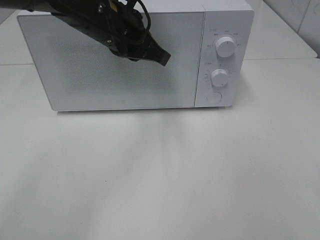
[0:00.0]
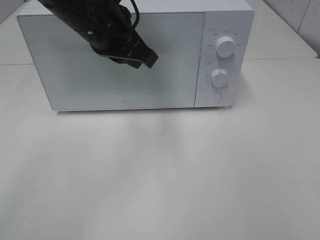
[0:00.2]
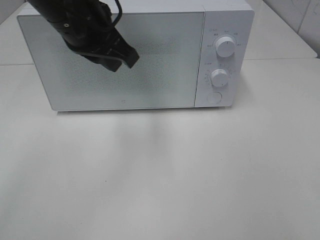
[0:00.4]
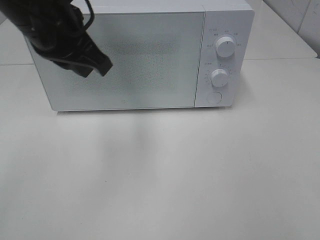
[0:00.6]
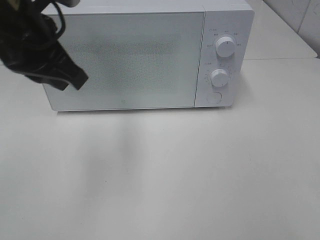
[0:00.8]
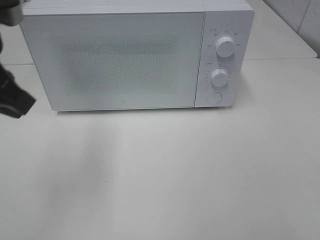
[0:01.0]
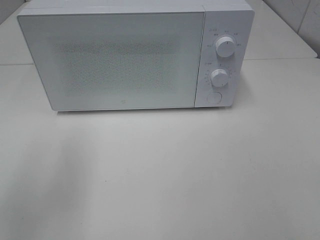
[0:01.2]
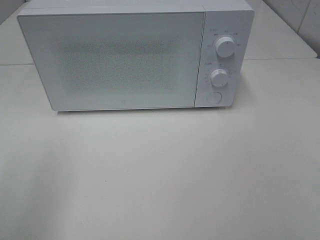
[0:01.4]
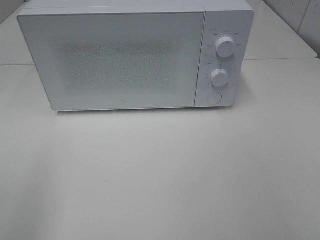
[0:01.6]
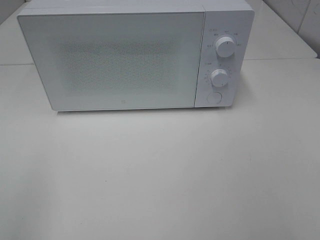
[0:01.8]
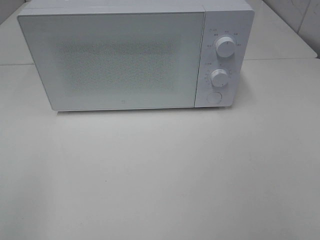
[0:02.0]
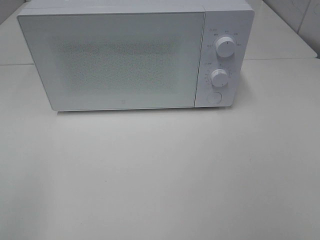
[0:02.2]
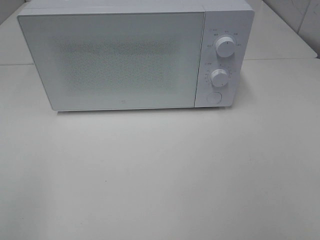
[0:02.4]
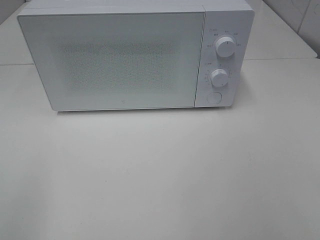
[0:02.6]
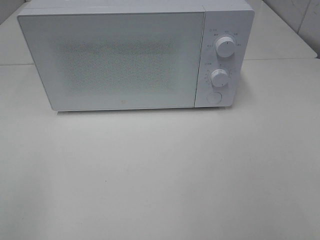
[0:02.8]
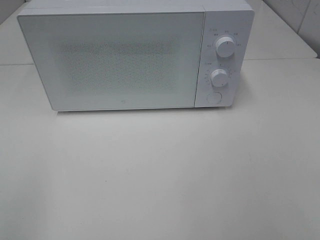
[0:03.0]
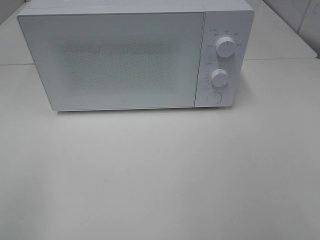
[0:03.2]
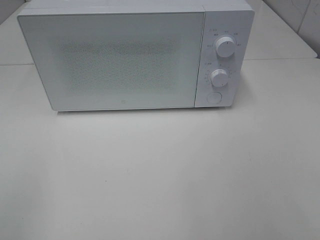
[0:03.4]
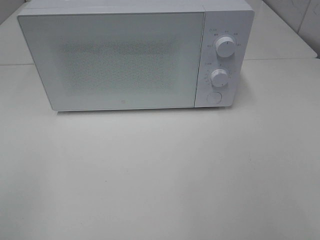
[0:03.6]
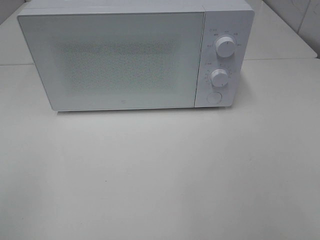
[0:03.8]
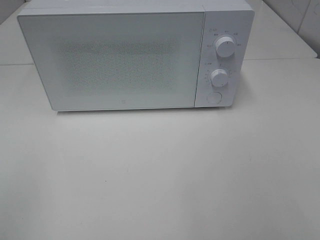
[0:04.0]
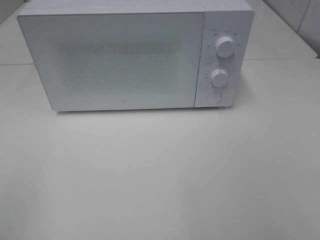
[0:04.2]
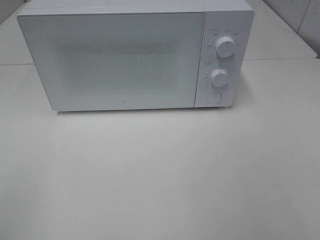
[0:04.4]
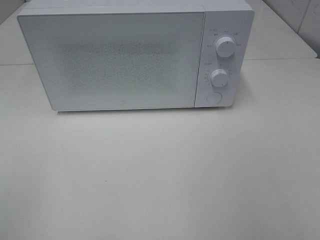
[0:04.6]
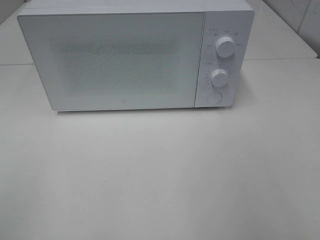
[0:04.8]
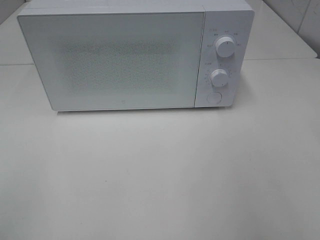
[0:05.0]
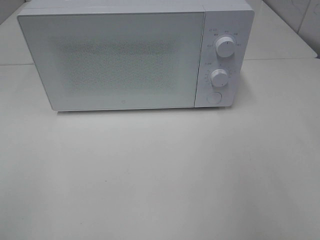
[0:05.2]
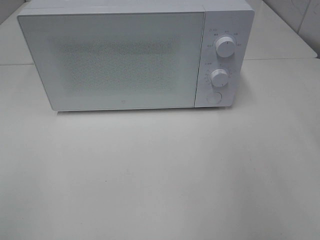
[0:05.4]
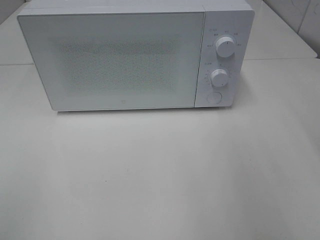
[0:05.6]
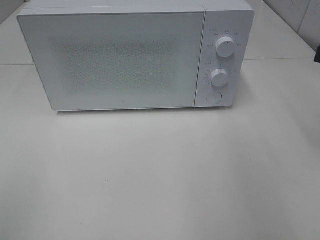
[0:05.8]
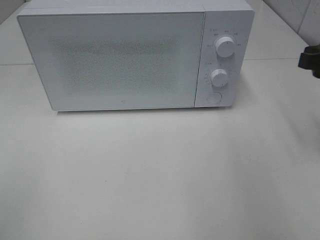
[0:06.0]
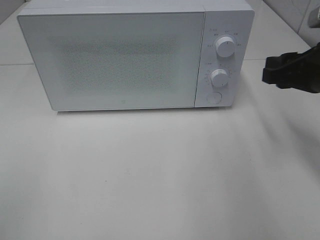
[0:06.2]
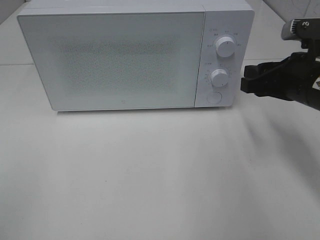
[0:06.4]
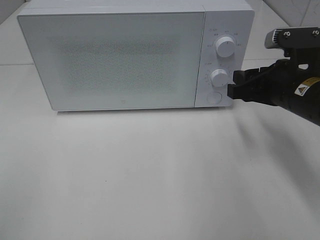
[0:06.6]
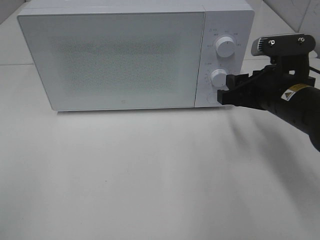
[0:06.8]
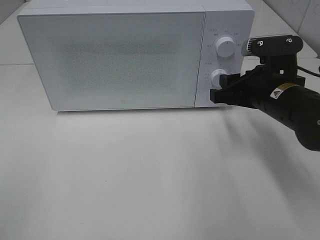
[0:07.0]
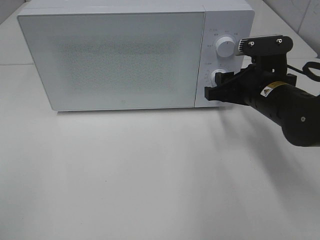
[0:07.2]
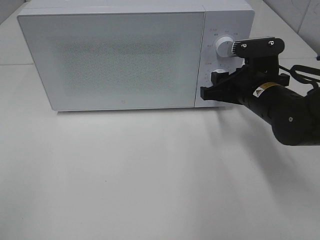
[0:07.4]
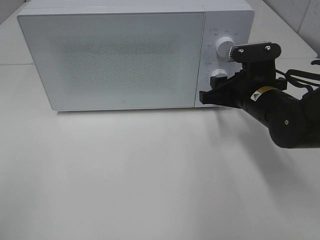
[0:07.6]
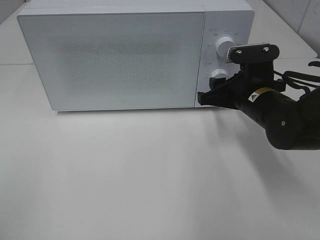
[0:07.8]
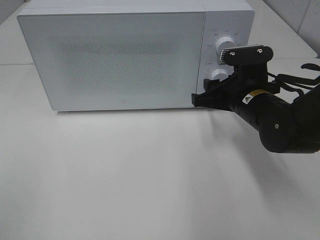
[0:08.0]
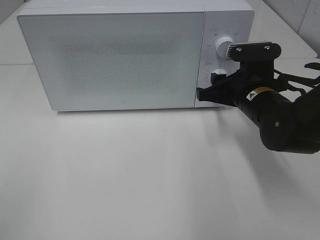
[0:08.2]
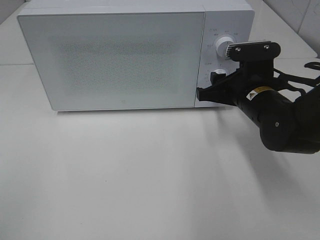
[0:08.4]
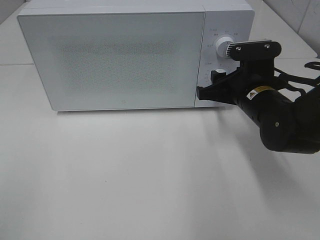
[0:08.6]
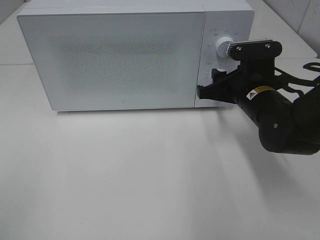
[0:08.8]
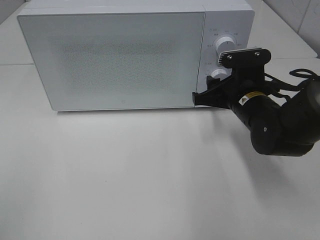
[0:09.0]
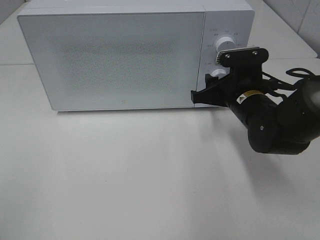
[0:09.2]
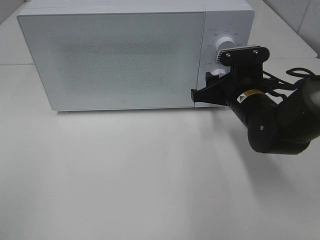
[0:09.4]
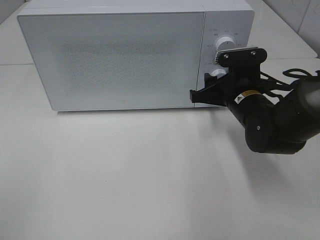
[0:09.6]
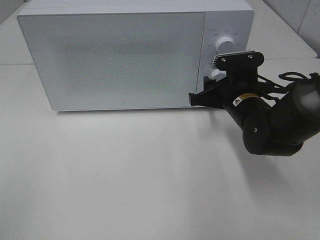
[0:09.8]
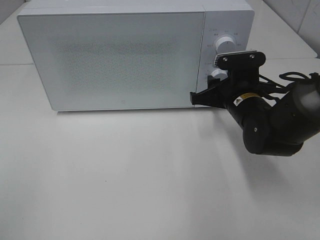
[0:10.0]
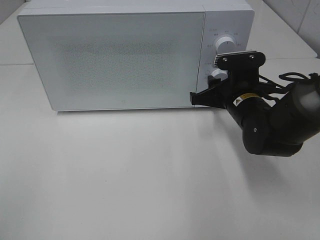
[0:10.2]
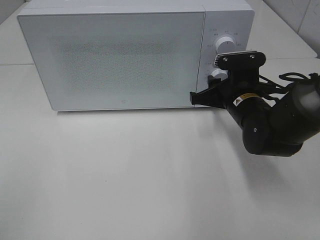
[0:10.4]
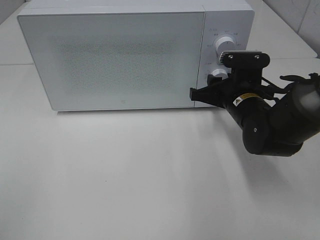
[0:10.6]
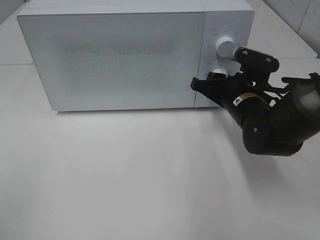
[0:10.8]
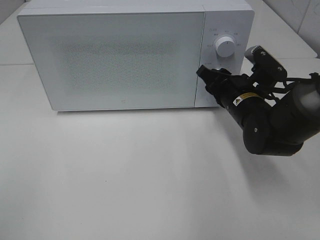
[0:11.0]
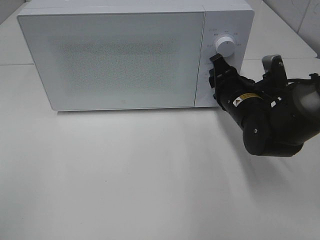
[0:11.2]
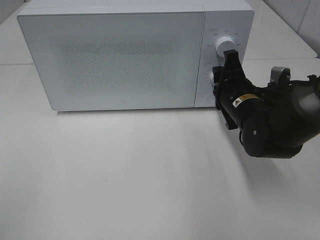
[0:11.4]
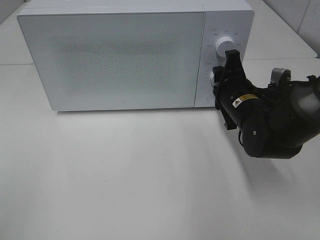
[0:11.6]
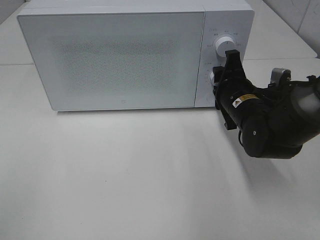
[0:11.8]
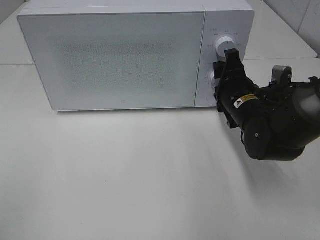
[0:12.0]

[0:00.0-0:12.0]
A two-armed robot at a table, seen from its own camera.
Task of the whole recording: Heat the burger.
Step, 0:00.0 to 0:11.8: Right hand: twist timer button.
0:00.0 to 0:01.6: The left gripper shifts some 35 cm backward and to the left.
0:04.4 to 0:06.0: The right gripper heads forward, covering roughly 25 cm.
0:06.0 to 0:07.6: The right gripper moves to the left, downward and forward, about 15 cm.
0:07.6 to 0:09.0: The grippers move only a little.
0:09.0 to 0:10.4: The two grippers keep their place.

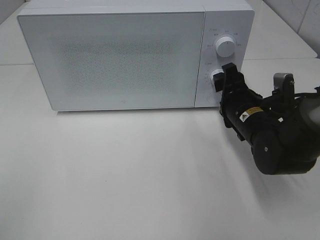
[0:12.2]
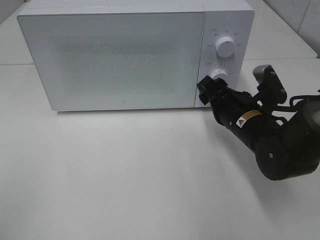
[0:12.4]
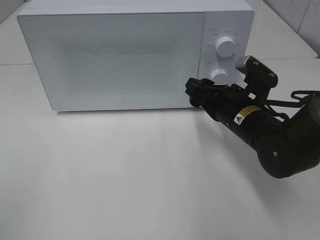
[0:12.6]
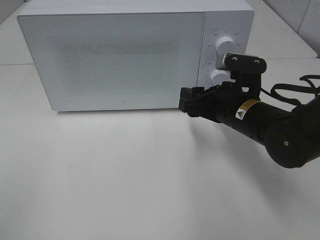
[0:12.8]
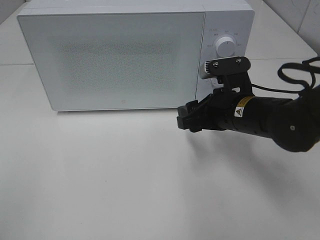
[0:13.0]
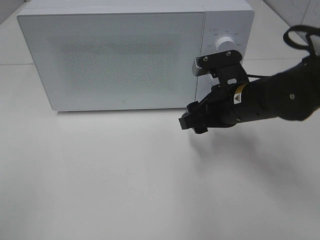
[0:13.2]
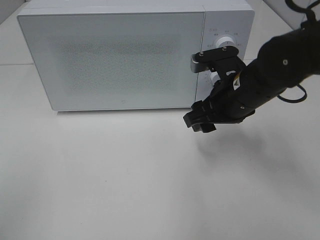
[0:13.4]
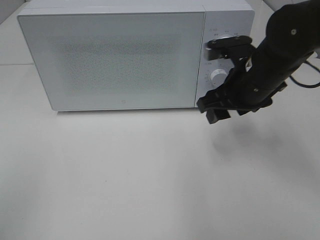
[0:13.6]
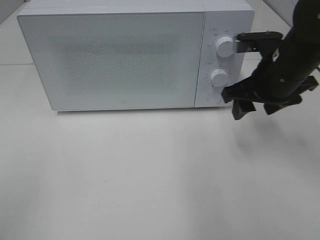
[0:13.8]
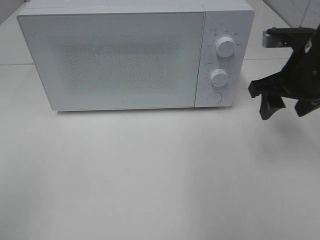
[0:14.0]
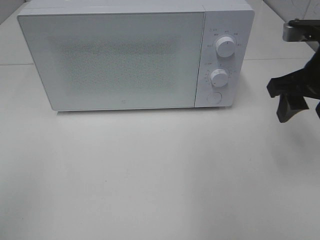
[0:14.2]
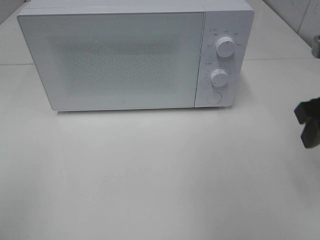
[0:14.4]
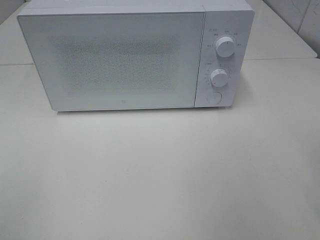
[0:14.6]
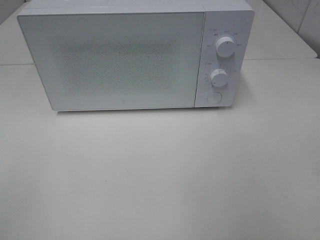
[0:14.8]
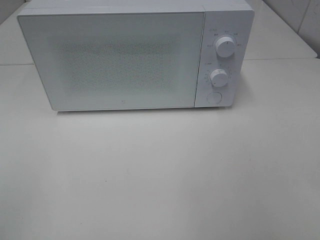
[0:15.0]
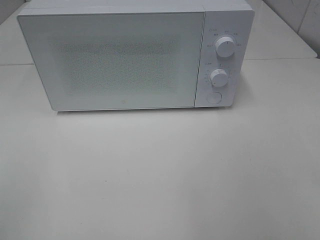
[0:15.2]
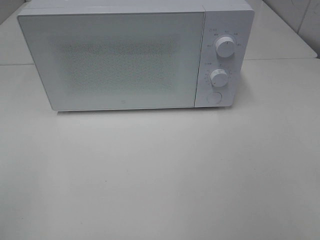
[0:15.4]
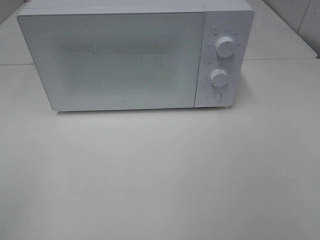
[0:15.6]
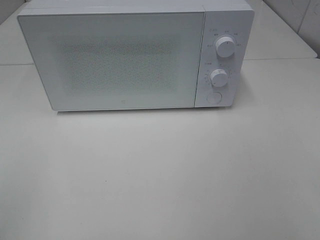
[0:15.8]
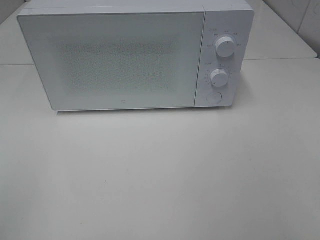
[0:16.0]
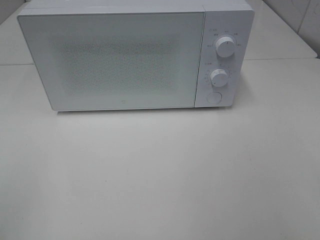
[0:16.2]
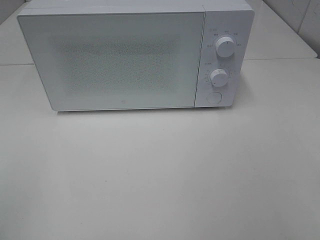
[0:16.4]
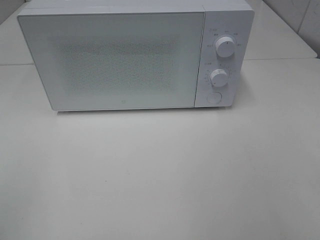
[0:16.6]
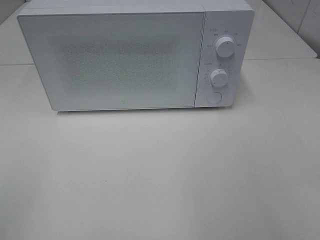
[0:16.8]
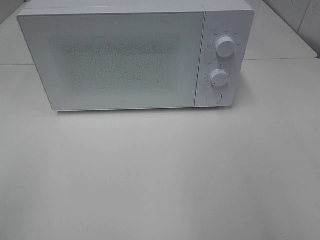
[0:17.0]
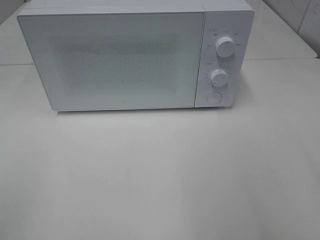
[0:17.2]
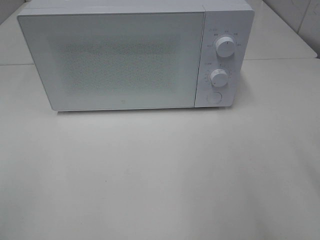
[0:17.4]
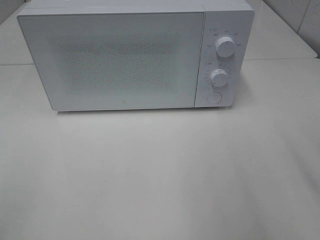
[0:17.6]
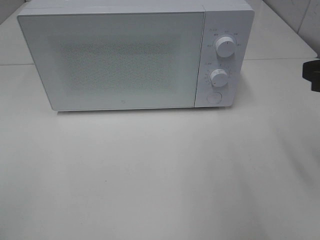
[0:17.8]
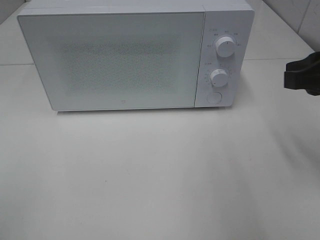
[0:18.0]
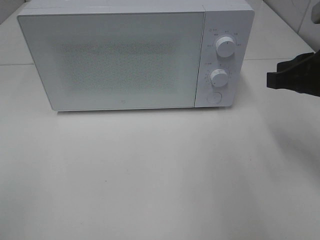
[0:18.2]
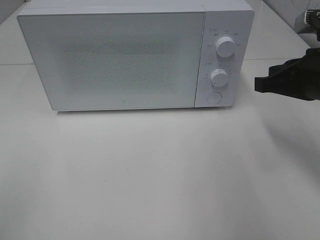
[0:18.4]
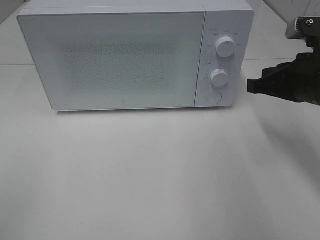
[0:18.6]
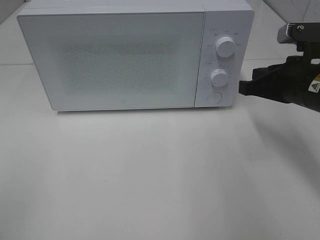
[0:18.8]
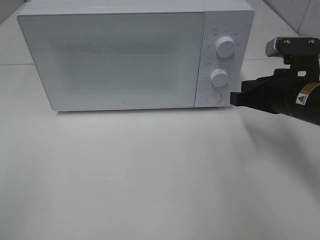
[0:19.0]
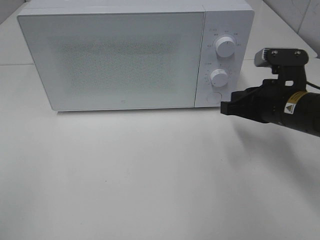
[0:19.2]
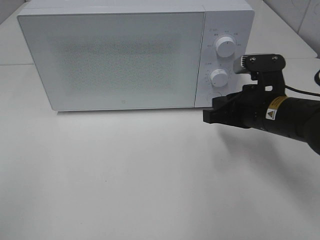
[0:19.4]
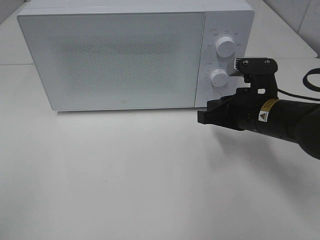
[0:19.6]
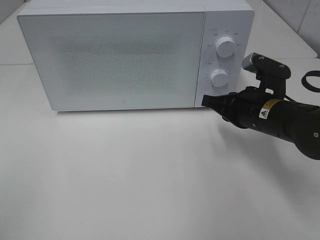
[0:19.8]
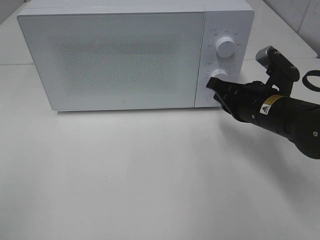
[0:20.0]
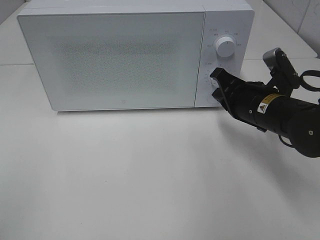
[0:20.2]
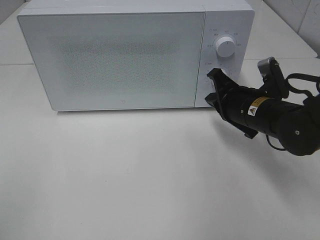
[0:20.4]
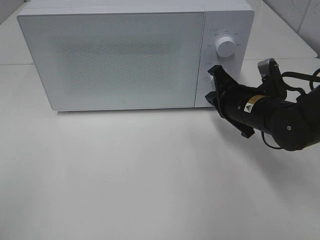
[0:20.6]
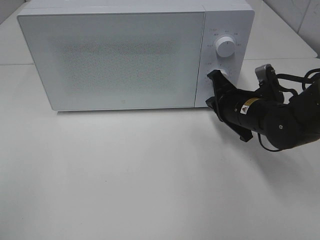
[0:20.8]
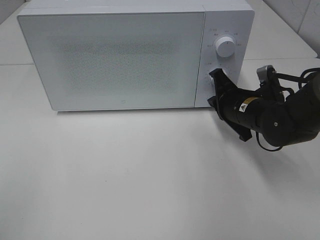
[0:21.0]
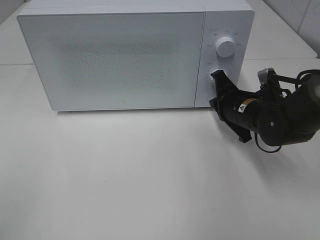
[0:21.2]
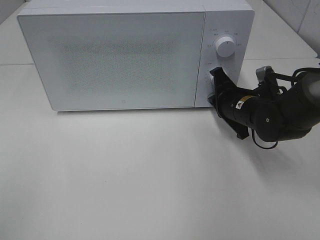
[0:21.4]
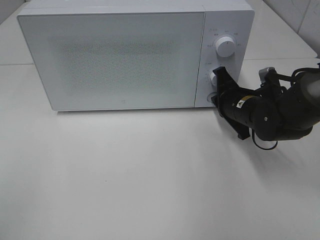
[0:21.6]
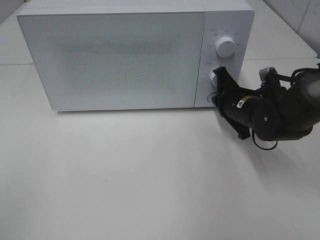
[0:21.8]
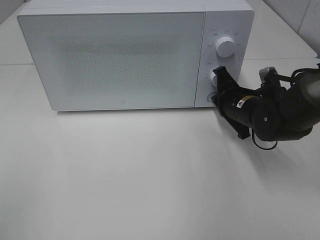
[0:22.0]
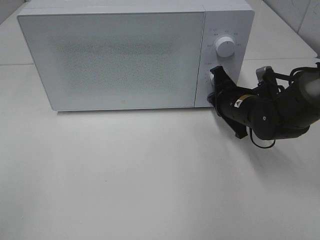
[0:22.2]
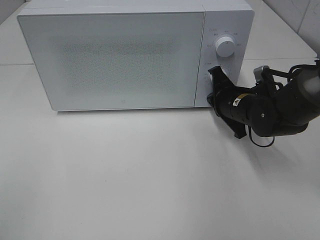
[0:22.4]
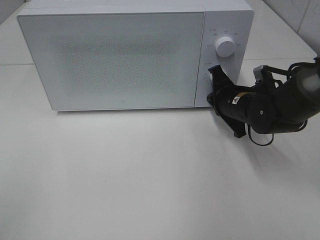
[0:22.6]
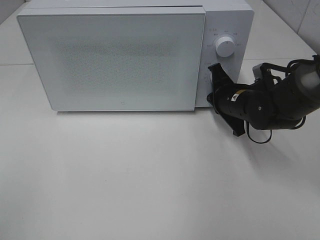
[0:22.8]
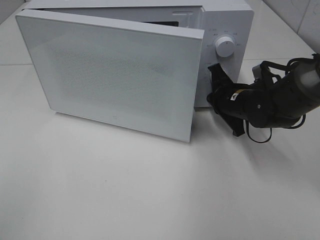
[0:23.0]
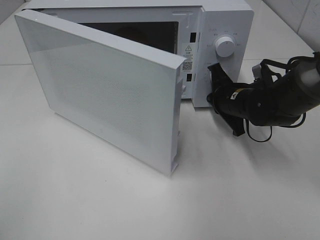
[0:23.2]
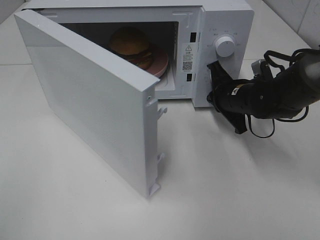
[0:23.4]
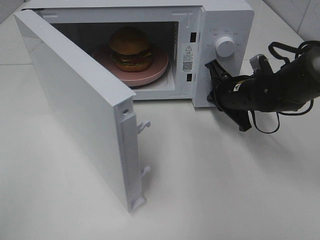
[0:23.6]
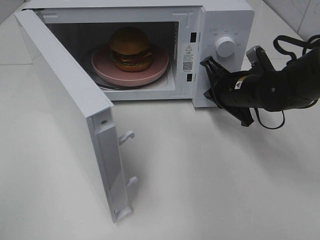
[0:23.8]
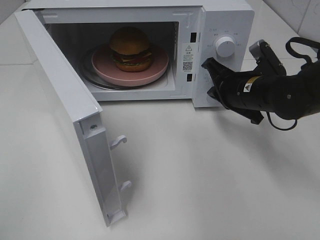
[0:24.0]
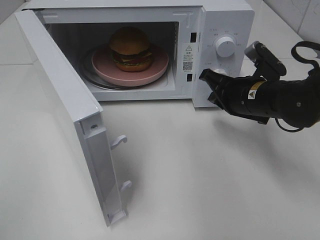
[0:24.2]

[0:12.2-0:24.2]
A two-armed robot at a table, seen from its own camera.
Task of the whole recording: Heat the burger.
Step, 0:12.2 to 0:23.6: Right hand: press the switch.
0:12.2 to 0:13.8: The right gripper travels upward by roughly 10 cm.
0:13.8 to 0:15.2: The right gripper goes approximately 25 cm backward.
0:16.6 to 0:18.2: The right gripper is displaced forward by about 25 cm, and closes up.
0:18.2 to 0:19.8: The right gripper shifts approximately 15 cm downward and to the left.
0:19.8 to 0:21.2: The right gripper goes roughly 5 cm forward.
0:21.2 to 0:22.6: The grippers move only a little.
0:22.6 to 0:24.2: The right gripper shifts by approximately 5 cm.
